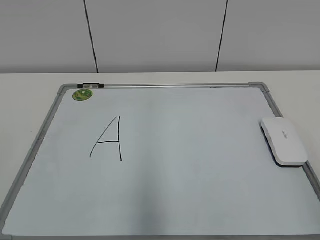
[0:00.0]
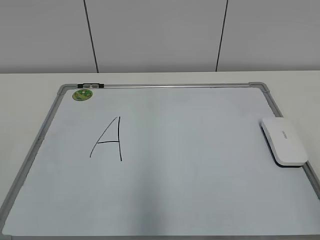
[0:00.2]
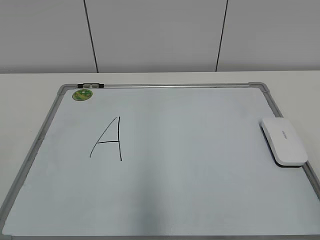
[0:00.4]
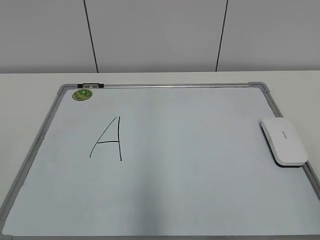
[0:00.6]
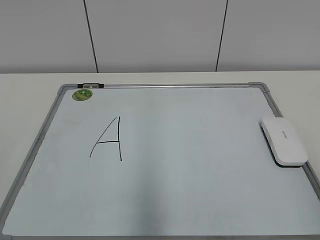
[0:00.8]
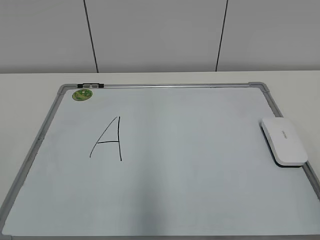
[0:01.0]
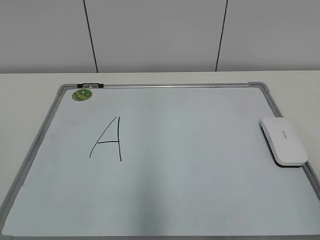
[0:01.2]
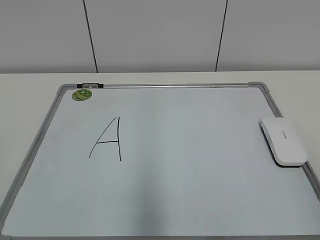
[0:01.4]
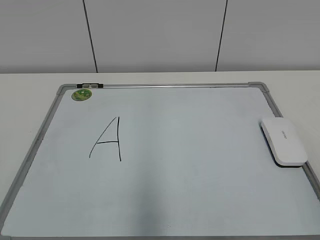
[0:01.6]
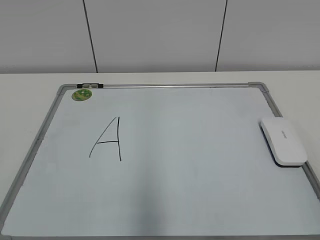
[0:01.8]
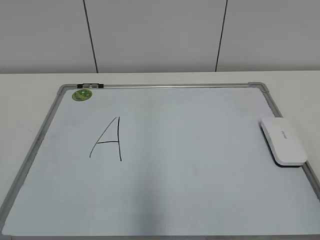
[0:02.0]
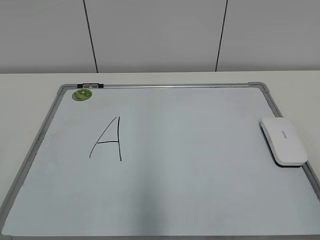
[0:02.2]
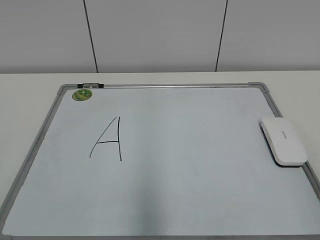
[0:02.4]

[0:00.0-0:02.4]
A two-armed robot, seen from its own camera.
Task of the whole recording: pick up the eraser on the blackboard and erase the letter "a".
0:00.0 to 0:01.2: Both grippers stay put.

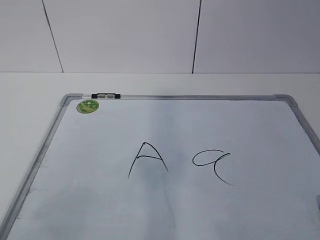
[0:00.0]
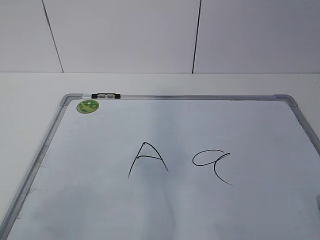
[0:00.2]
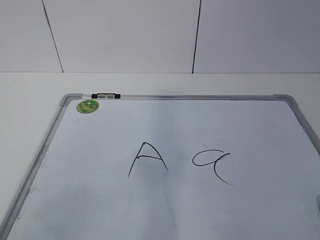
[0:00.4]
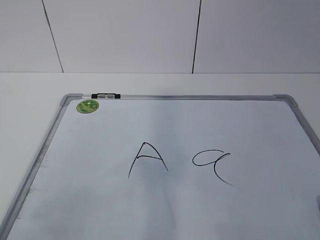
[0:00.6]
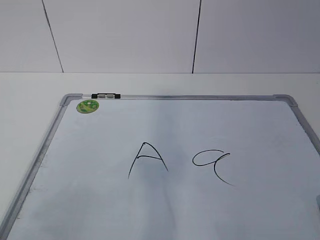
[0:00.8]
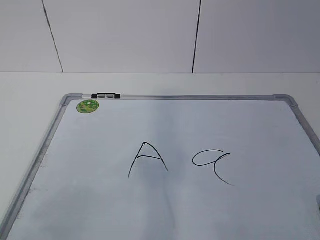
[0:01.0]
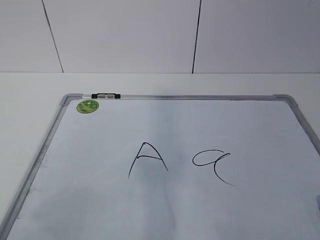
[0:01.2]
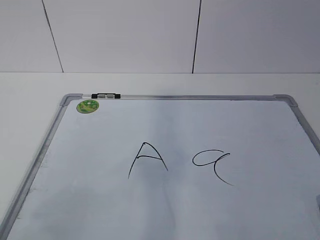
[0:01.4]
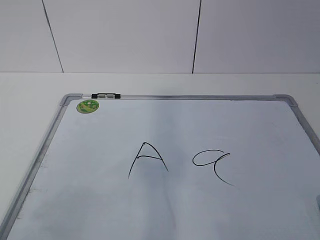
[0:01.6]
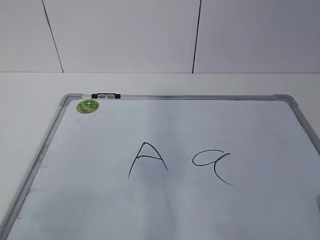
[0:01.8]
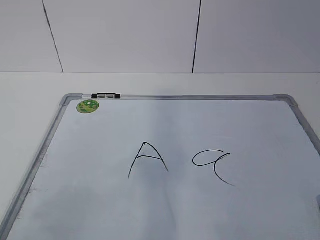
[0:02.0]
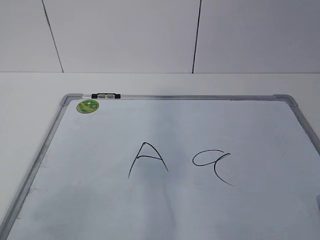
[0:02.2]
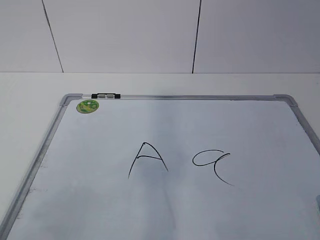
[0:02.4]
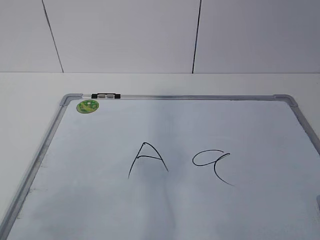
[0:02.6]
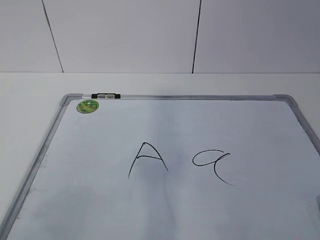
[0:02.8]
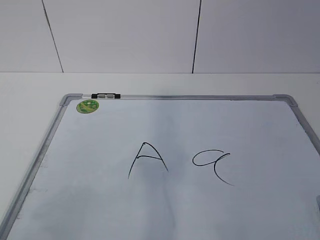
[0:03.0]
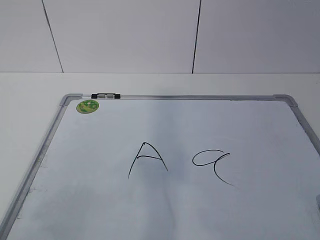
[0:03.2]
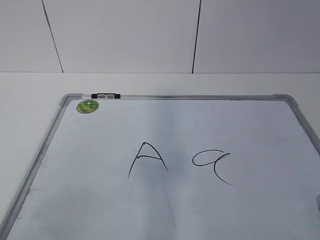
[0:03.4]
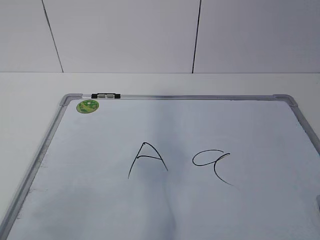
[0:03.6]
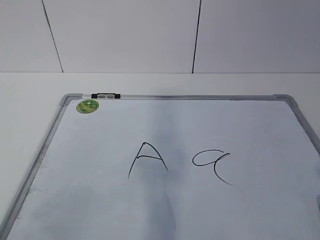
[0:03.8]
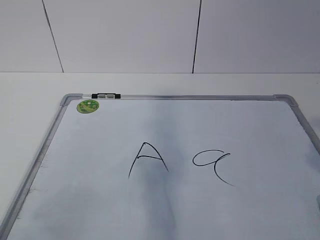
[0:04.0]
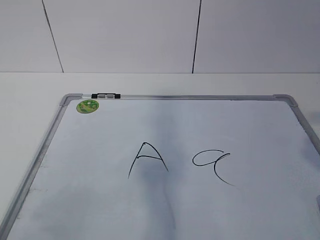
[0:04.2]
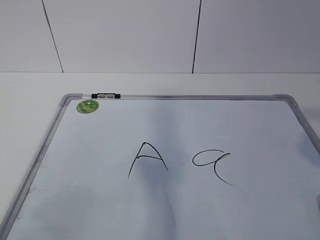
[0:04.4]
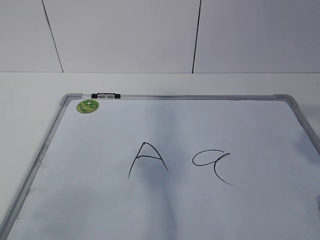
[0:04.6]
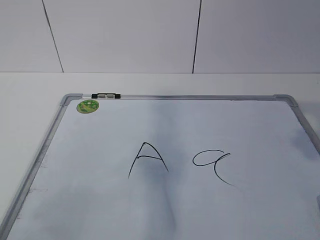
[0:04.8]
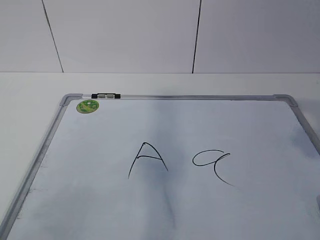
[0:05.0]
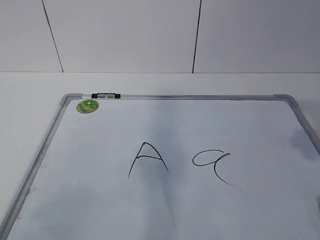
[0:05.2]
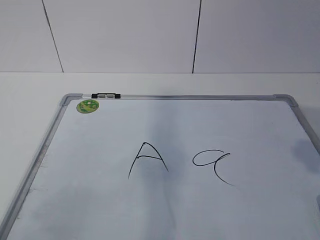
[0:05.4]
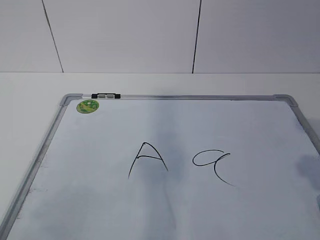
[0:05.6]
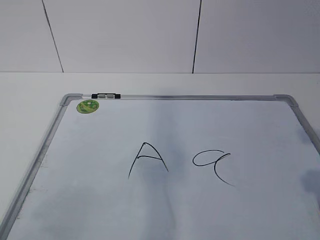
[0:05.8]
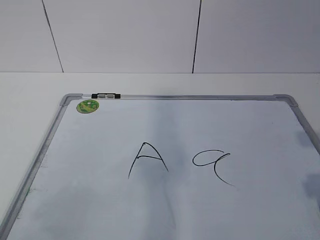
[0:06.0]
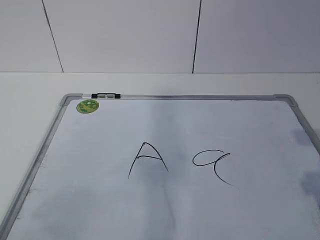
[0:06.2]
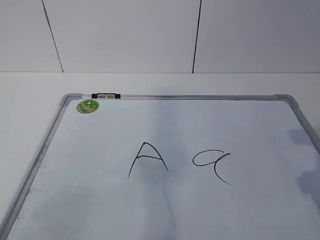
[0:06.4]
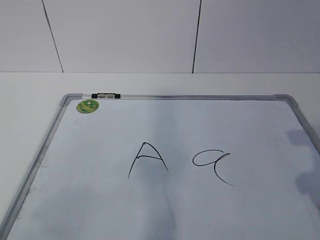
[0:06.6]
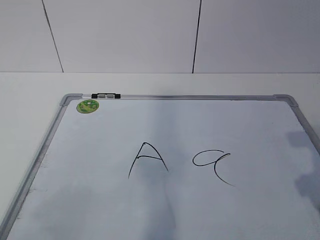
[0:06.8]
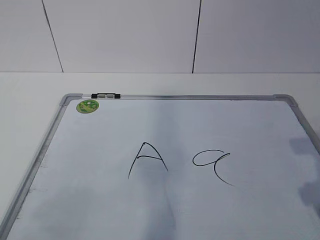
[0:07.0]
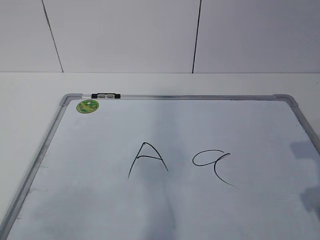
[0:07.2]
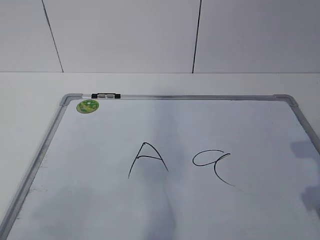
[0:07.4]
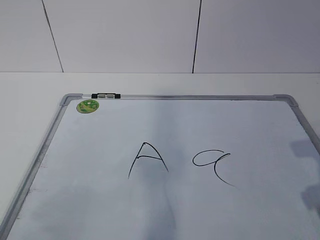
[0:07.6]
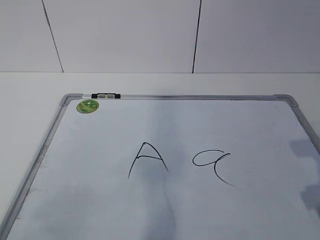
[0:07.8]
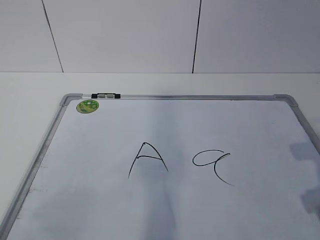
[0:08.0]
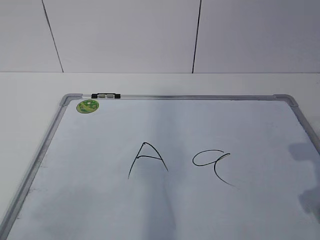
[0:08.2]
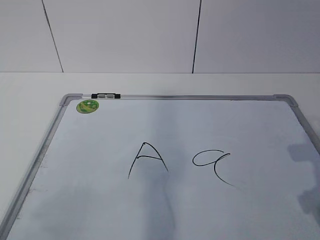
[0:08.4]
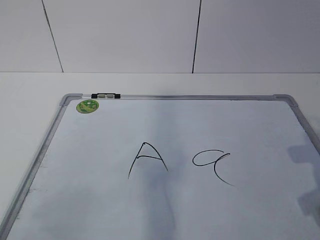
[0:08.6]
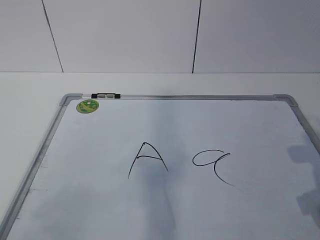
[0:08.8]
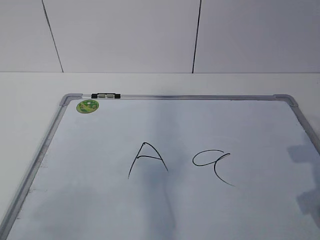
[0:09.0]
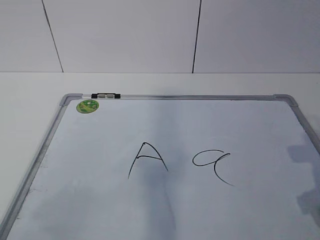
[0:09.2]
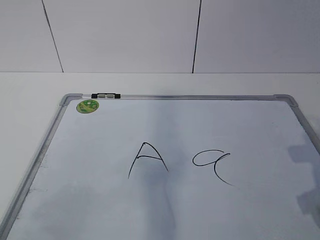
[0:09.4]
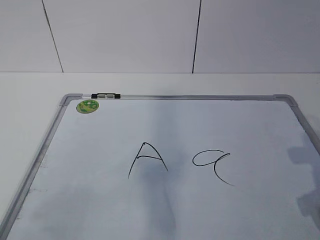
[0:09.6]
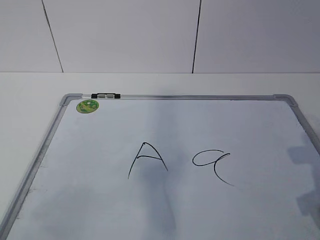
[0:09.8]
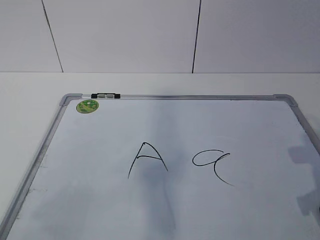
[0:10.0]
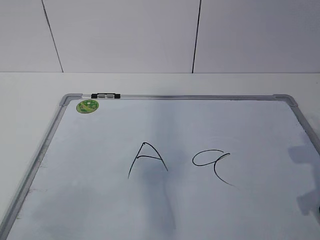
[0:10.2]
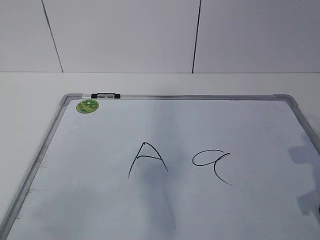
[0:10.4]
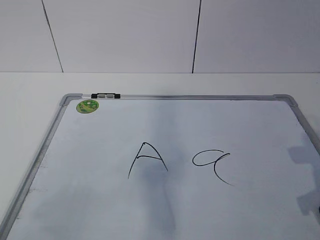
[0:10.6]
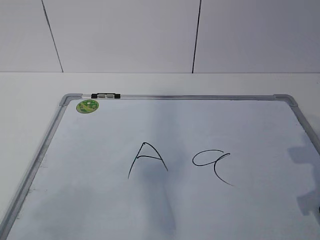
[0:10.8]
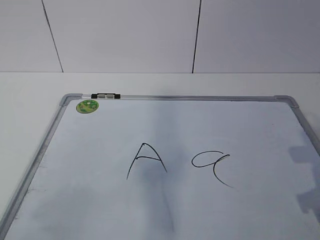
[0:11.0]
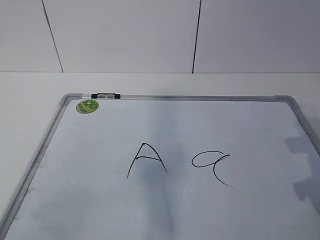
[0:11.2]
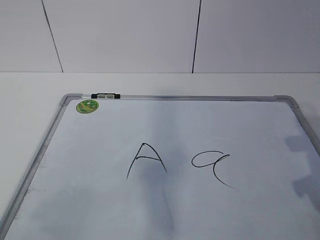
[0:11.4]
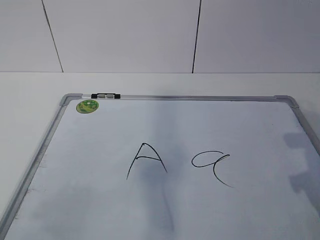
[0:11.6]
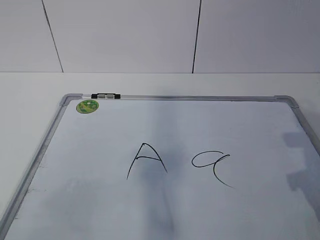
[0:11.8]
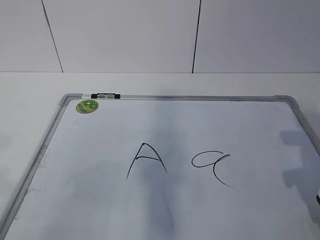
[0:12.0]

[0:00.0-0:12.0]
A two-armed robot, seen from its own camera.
Task of the whole recording: pick up the eraser on the blackboard and erase the letter "a".
0:01.6 to 0:03.0: The two grippers keep their place.
0:09.0 to 0:10.4: Both grippers stay put.
0:10.4 to 0:12.0: The left gripper moves about 5 cm.

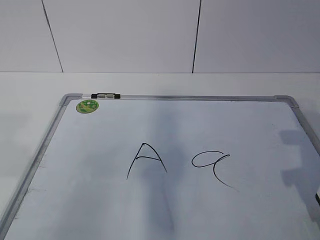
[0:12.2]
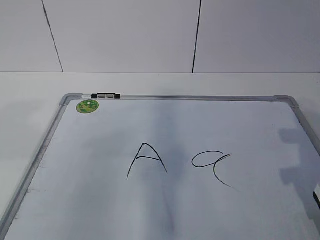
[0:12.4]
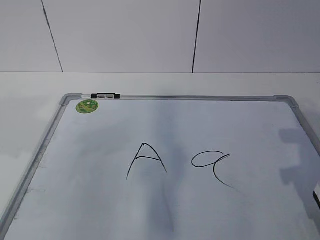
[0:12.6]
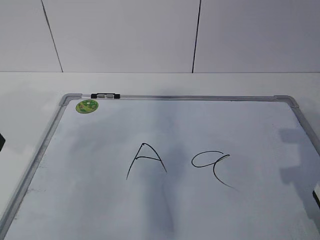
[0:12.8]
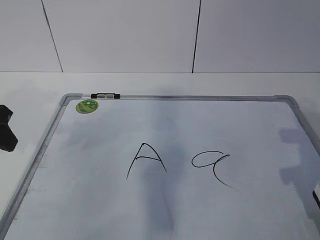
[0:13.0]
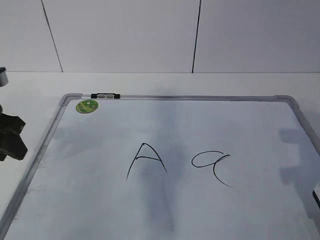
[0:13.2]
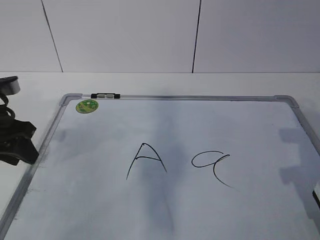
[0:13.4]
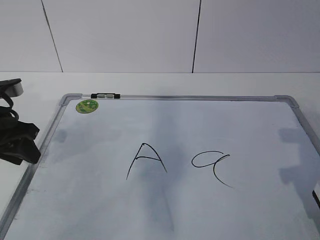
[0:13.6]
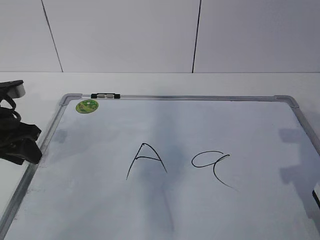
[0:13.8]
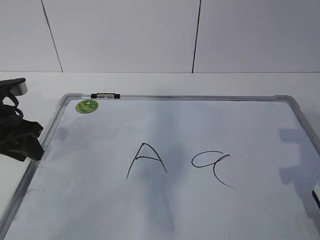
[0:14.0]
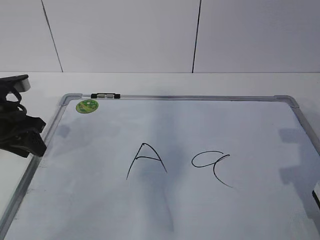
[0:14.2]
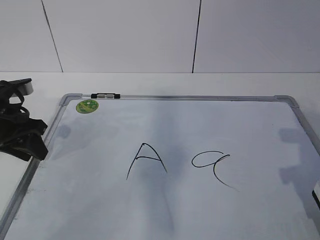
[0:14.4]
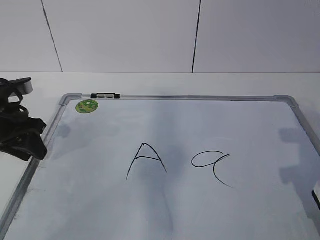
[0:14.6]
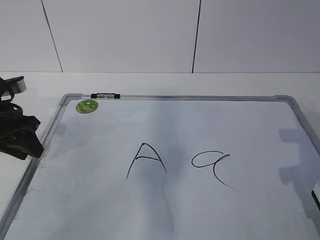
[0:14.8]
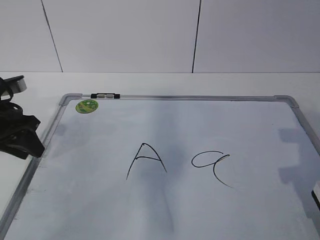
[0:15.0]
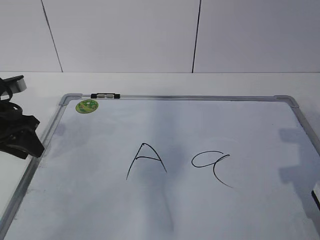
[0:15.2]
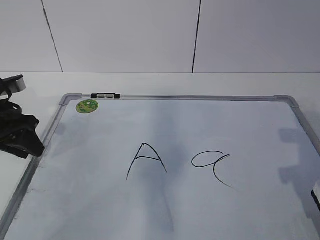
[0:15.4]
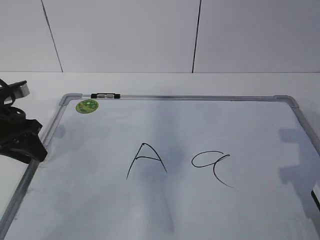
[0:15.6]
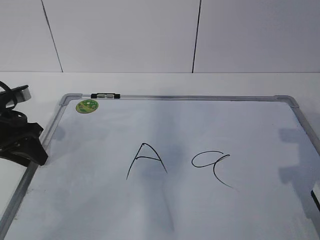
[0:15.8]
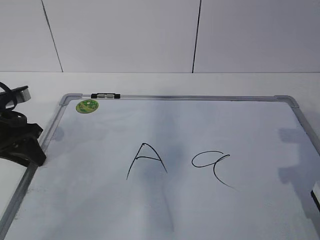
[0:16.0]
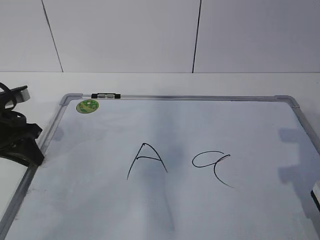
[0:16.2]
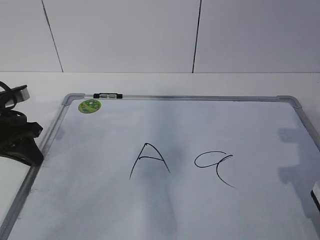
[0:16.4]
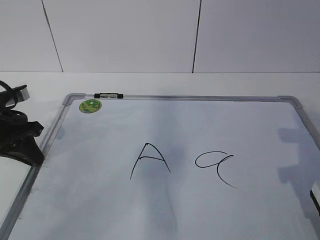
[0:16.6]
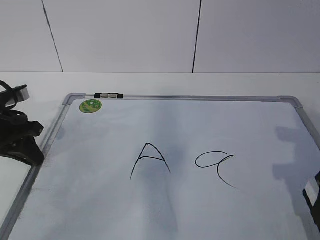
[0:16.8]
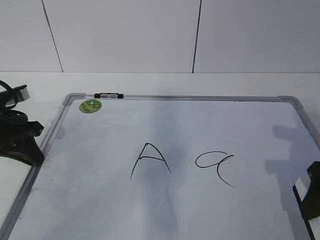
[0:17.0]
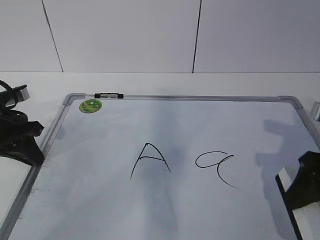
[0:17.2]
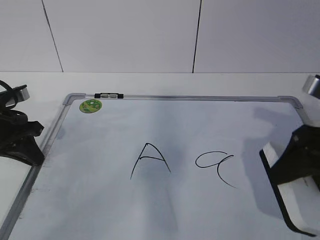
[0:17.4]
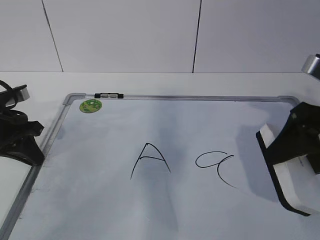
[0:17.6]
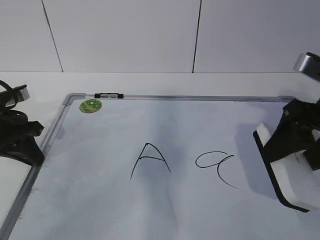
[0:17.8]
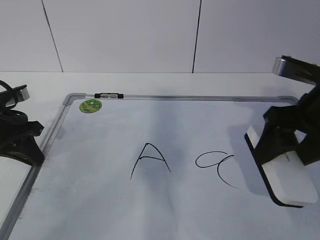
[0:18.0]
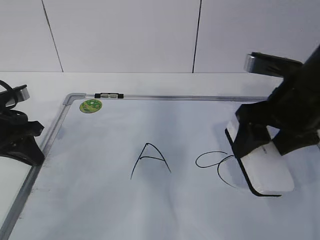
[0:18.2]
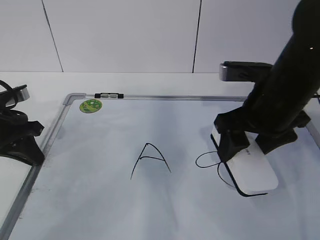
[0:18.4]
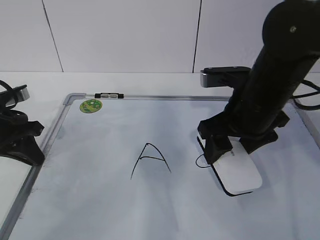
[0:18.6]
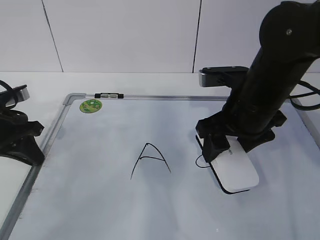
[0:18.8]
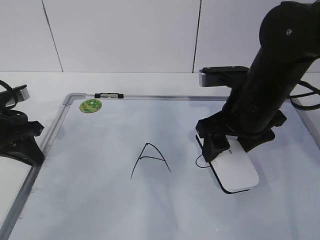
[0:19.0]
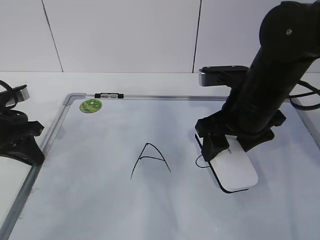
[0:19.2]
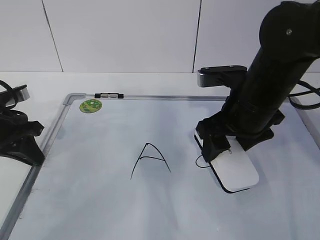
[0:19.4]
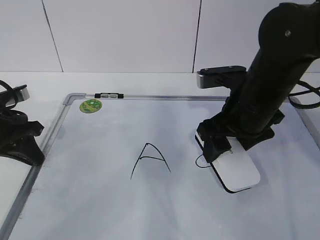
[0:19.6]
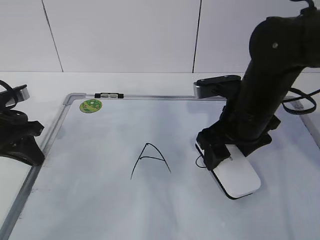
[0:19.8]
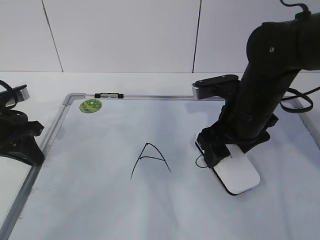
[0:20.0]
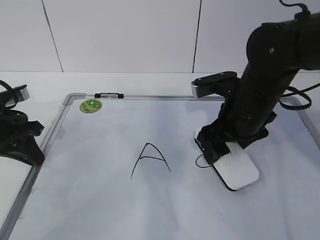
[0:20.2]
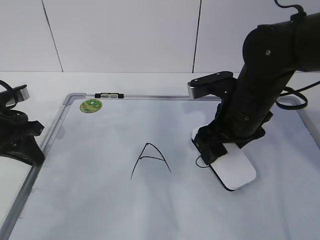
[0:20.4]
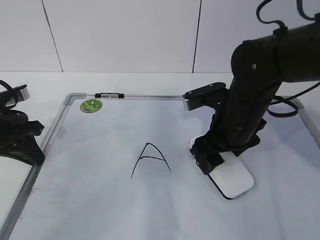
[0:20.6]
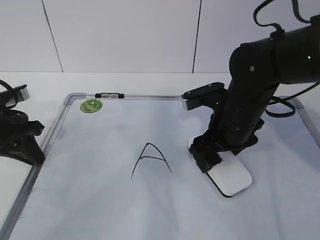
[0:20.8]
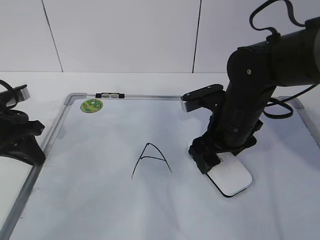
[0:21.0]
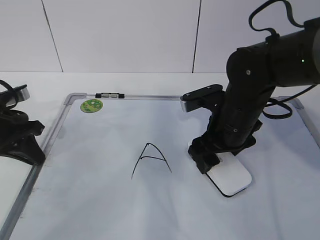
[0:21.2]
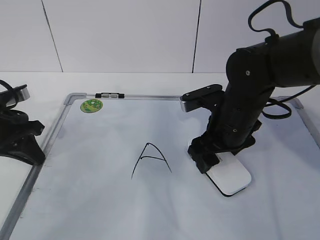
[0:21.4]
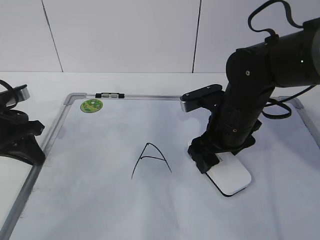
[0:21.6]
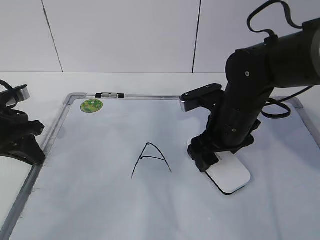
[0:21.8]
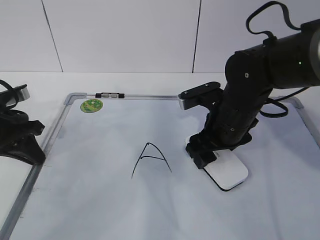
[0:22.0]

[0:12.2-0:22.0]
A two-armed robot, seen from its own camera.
Task of the whole recording: pick up the eraser on the blackboard and erase the letter "a".
0:12.2 to 0:13.6: The left gripper travels forward and downward by roughly 25 cm.
0:13.6 to 0:15.0: The grippers make only small movements.
0:15.0 to 0:16.4: The left gripper closes its fingers.
0:16.4 to 0:17.8: The right gripper changes place by some 10 cm.
0:17.8 to 0:19.2: The right gripper goes about 10 cm to the left and forward.
0:19.2 to 0:20.6: There are only small adjustments of the grippers.
0:20.6 to 0:22.0: The grippers stay close to where they were, moving slightly.
